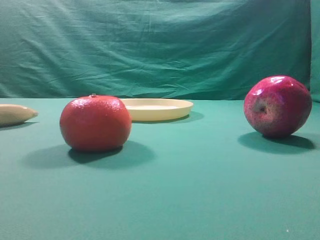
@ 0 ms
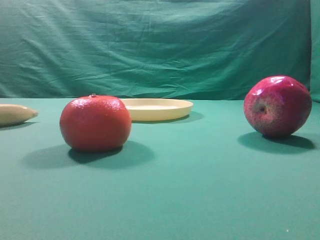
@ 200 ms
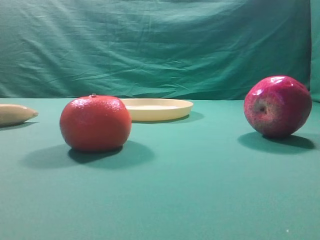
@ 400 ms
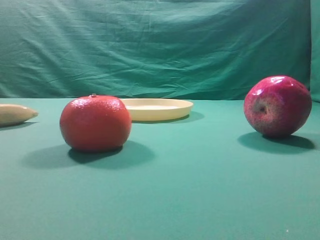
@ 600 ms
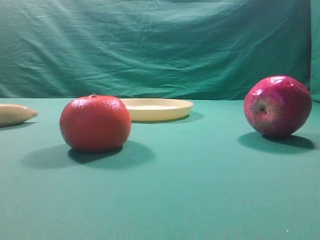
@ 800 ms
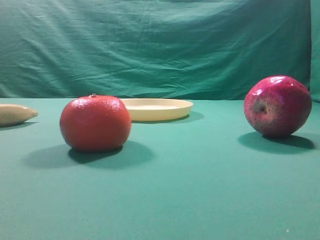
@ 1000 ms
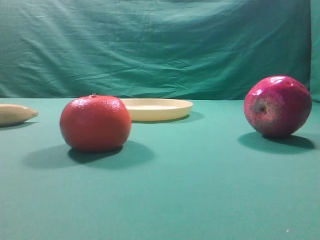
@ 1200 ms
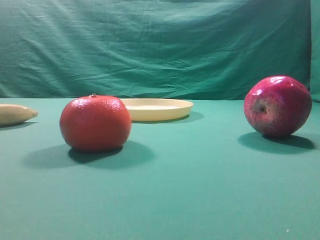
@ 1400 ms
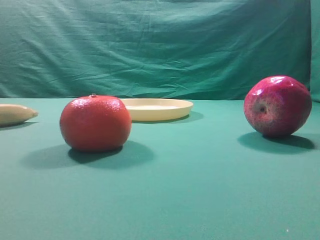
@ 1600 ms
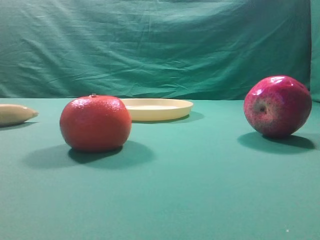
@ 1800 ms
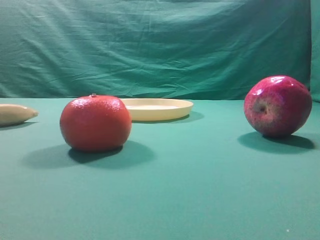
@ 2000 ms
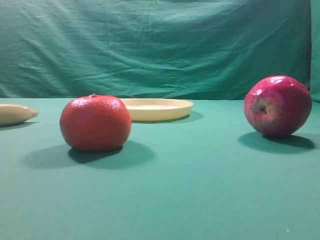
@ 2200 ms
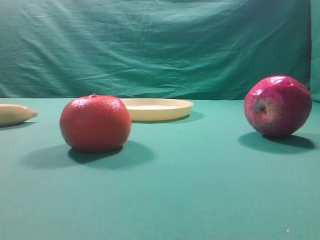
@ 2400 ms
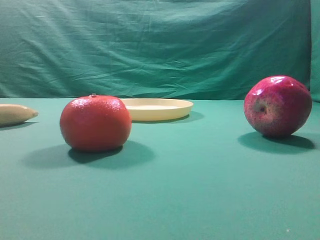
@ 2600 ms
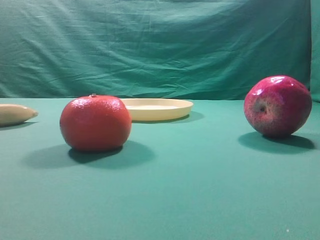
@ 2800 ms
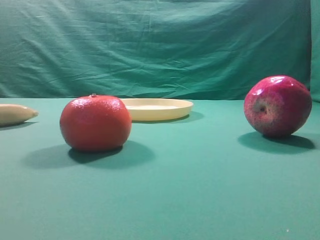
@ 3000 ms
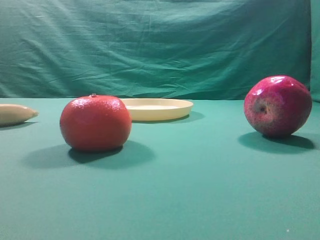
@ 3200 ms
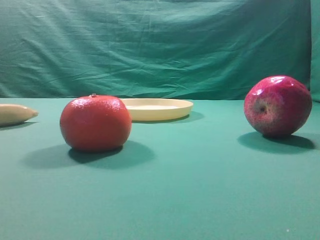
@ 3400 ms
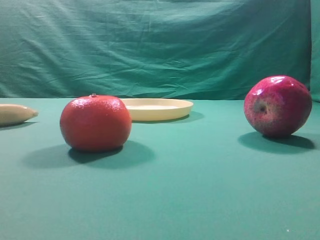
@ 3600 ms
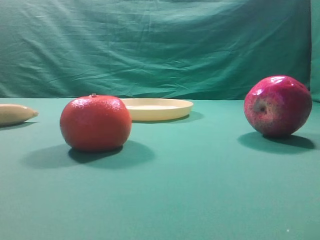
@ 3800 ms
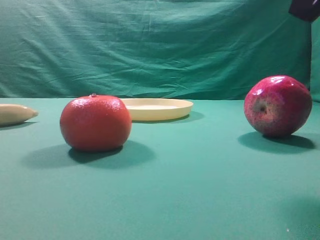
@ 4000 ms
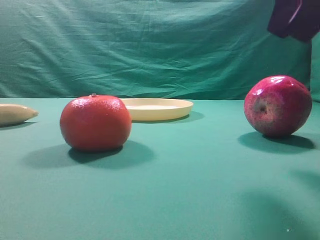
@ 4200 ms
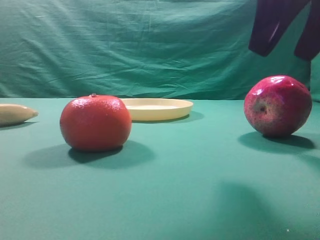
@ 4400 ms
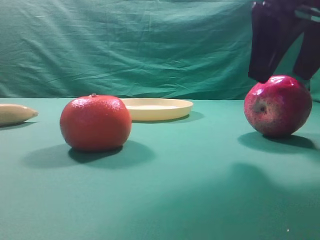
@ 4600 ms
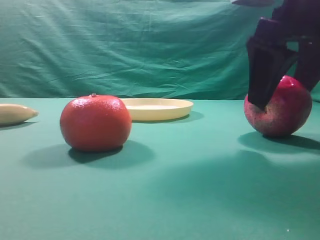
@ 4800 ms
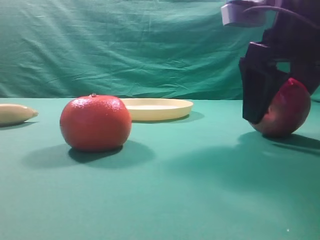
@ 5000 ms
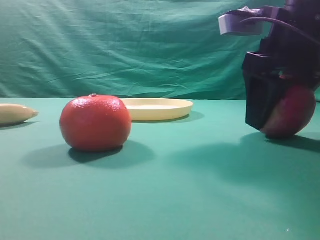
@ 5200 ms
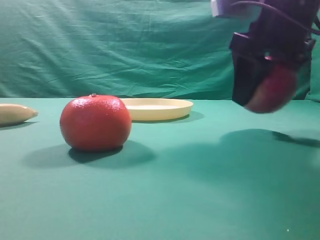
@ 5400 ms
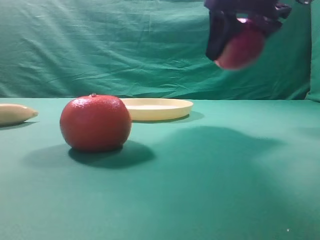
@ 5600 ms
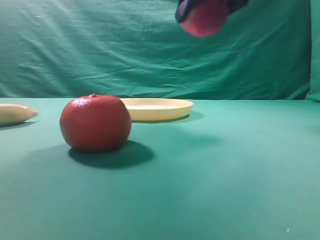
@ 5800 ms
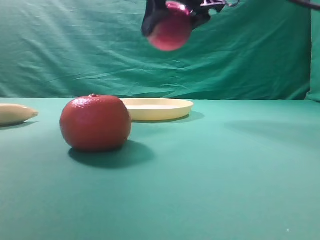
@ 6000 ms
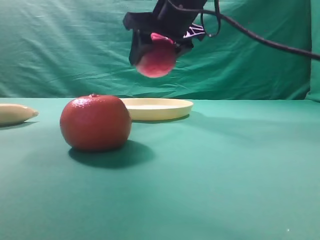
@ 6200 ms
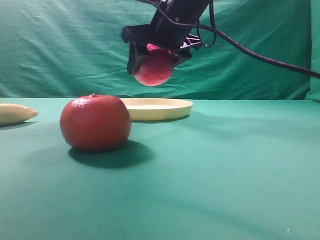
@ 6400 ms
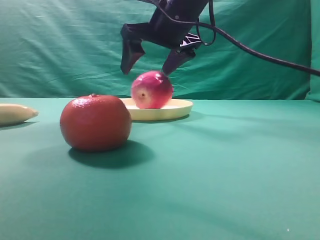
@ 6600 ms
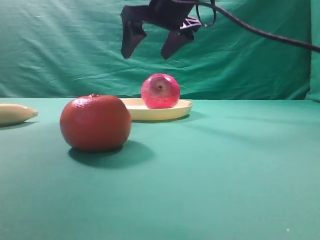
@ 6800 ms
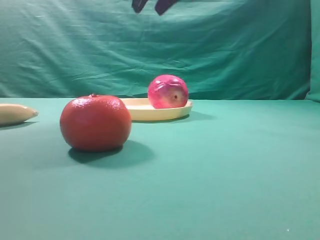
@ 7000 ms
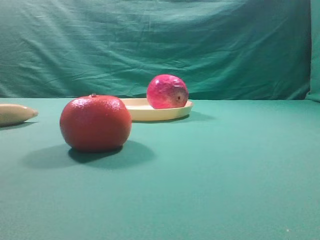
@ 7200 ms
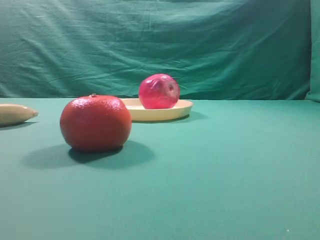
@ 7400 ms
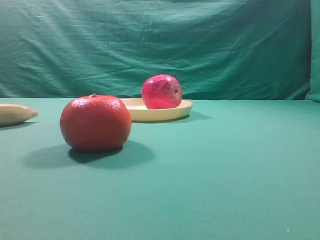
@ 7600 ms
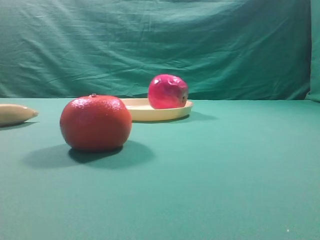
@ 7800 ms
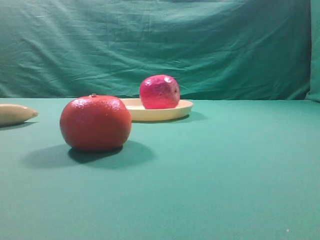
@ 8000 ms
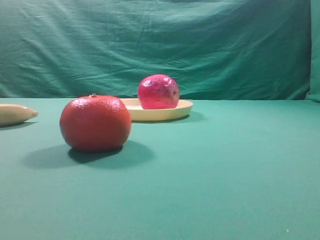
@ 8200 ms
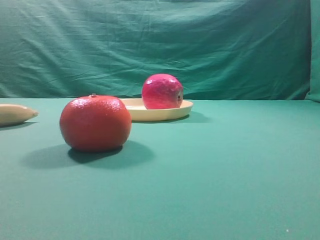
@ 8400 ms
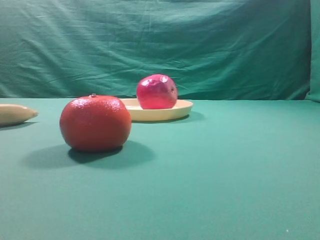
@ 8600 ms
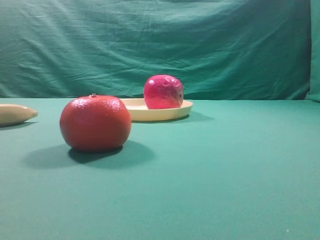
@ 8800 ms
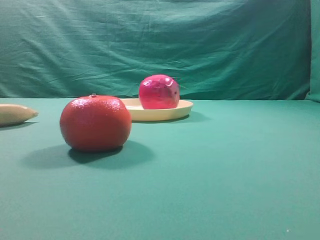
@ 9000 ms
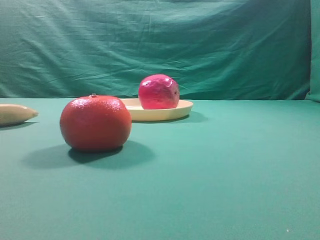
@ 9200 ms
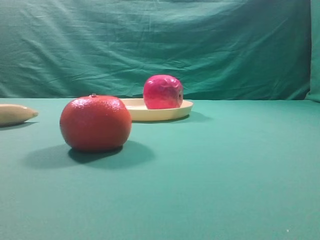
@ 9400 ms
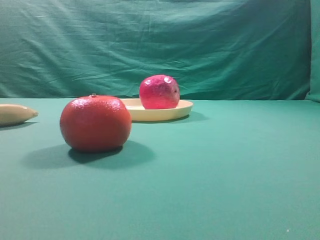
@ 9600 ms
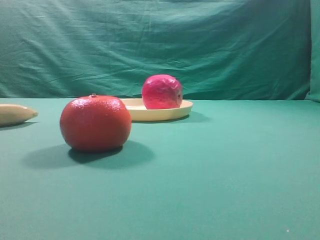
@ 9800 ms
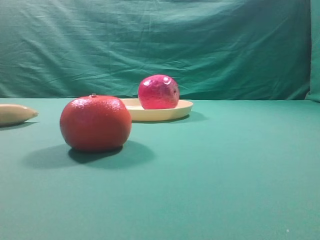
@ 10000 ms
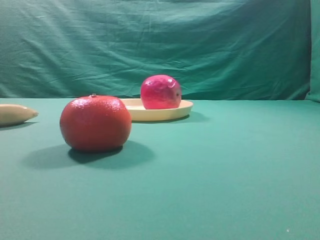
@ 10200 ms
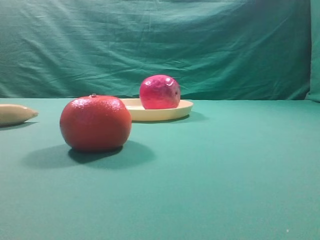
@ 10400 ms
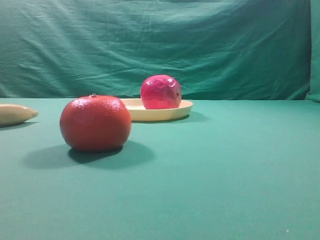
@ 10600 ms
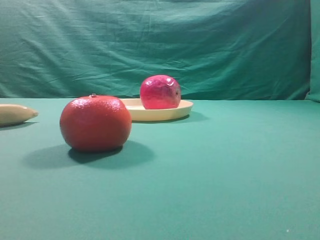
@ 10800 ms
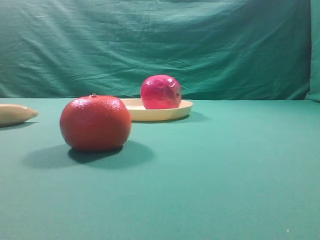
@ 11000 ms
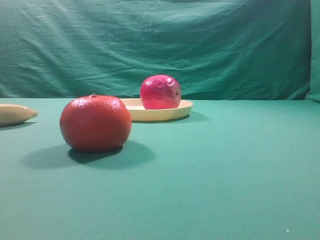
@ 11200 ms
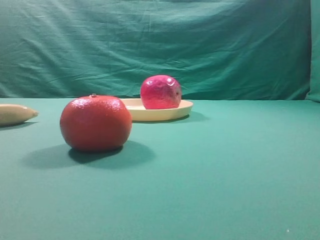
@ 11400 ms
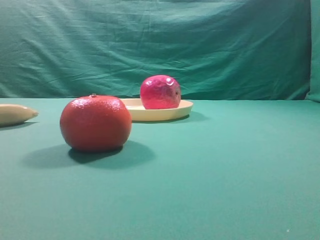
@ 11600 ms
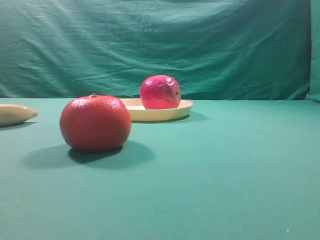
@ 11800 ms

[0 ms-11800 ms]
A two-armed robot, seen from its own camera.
Task of the whole recording: grasp the apple and place it into the yellow plate.
Step, 0 ms to 5400 ms: Grasp the fruit that can keep the doctor away.
Step, 5600 ms to 6800 ms: Place the picked object into the yellow plate.

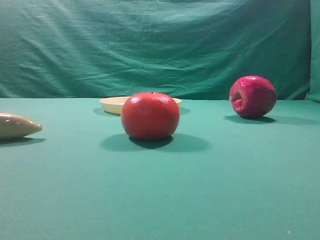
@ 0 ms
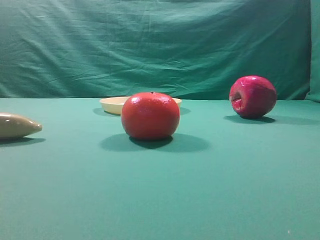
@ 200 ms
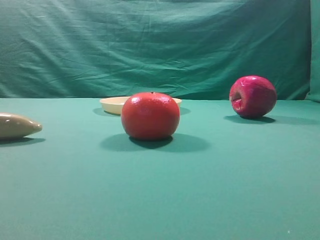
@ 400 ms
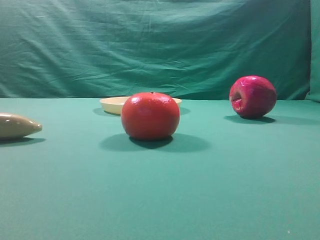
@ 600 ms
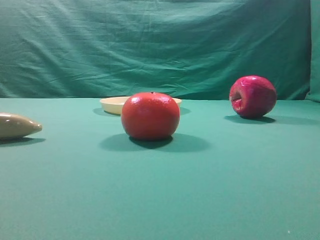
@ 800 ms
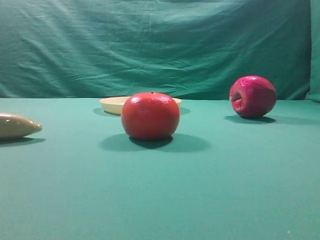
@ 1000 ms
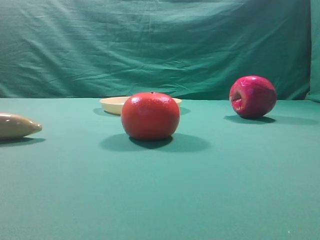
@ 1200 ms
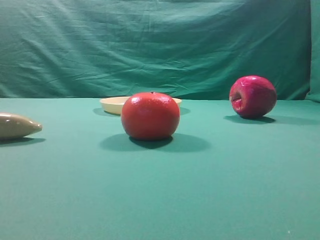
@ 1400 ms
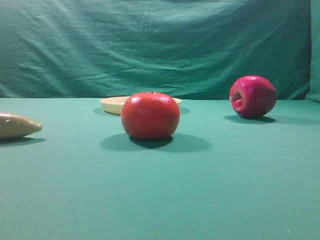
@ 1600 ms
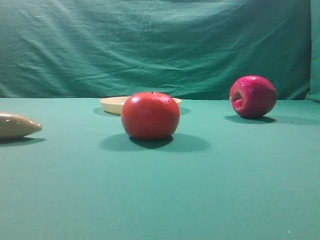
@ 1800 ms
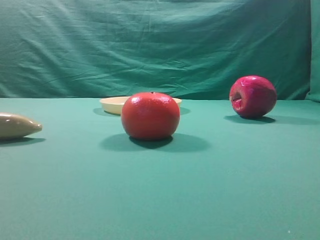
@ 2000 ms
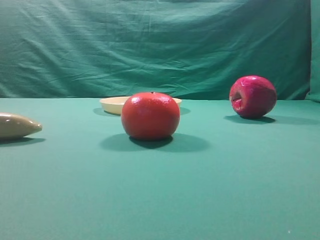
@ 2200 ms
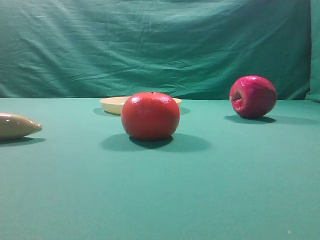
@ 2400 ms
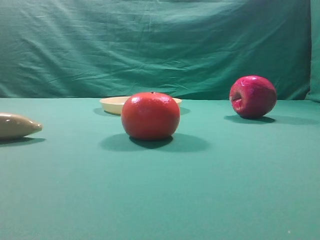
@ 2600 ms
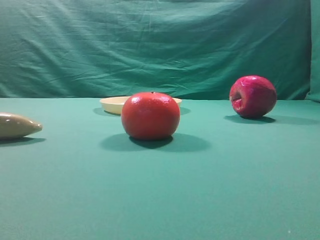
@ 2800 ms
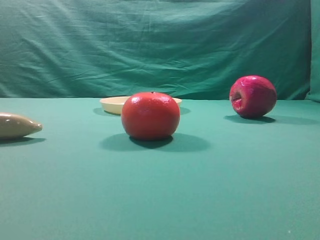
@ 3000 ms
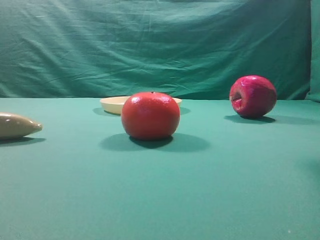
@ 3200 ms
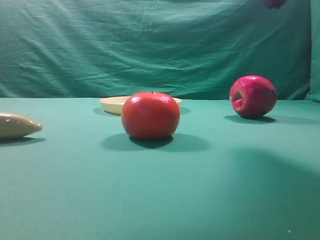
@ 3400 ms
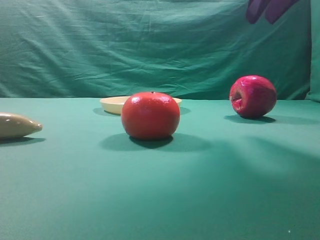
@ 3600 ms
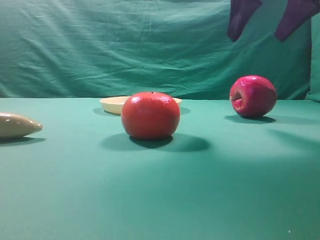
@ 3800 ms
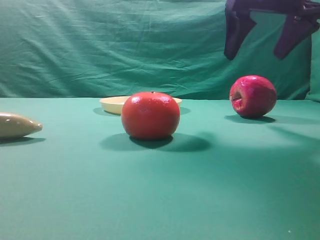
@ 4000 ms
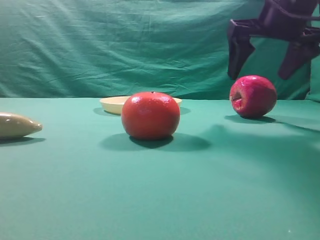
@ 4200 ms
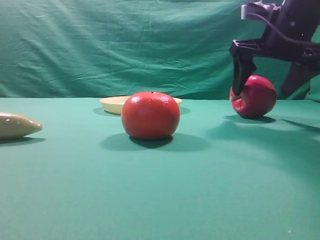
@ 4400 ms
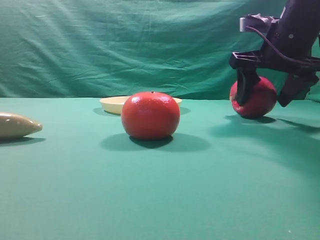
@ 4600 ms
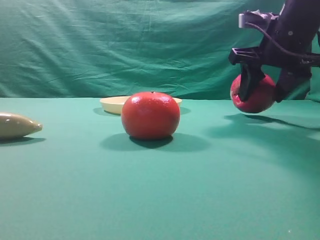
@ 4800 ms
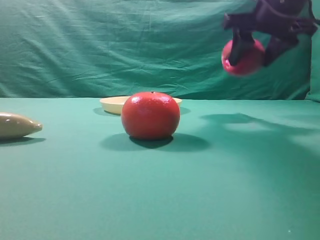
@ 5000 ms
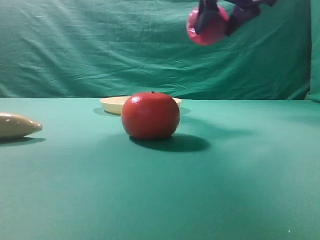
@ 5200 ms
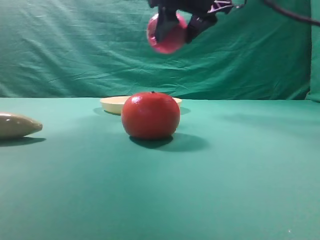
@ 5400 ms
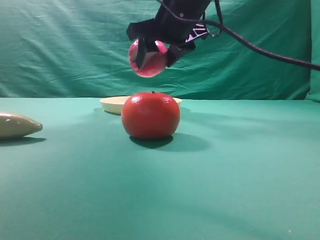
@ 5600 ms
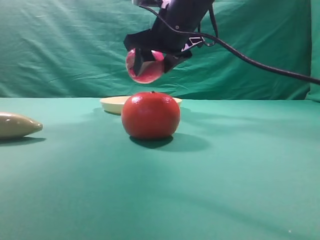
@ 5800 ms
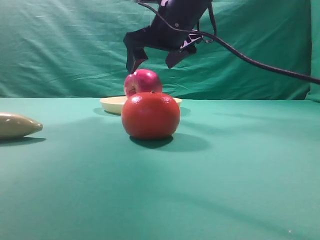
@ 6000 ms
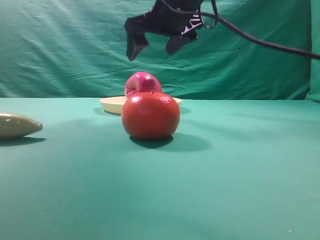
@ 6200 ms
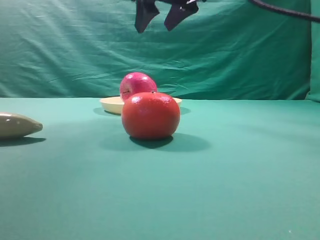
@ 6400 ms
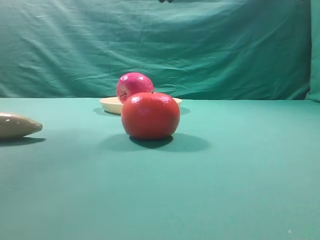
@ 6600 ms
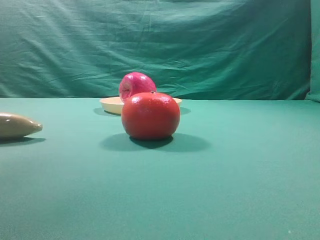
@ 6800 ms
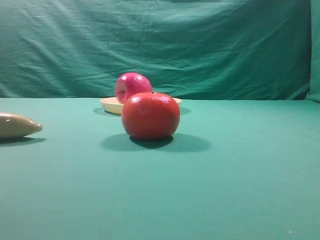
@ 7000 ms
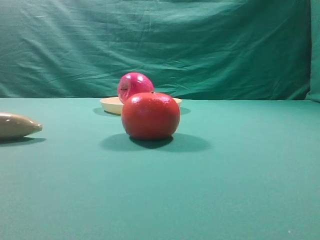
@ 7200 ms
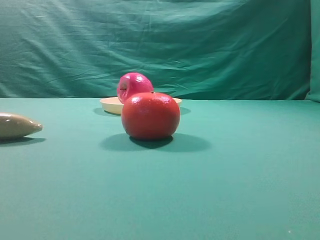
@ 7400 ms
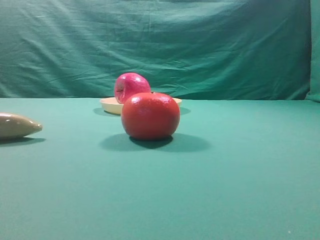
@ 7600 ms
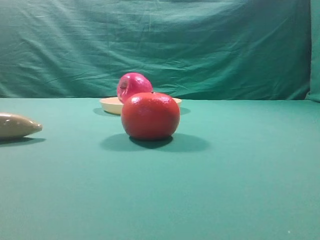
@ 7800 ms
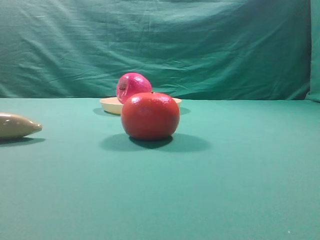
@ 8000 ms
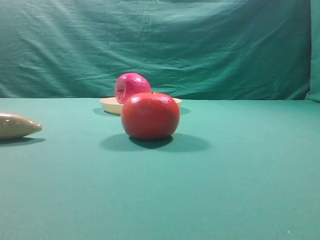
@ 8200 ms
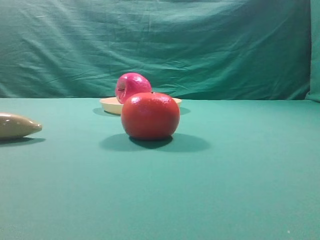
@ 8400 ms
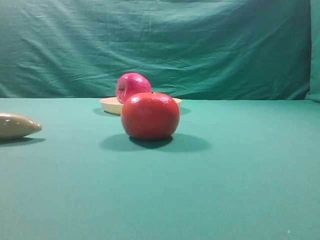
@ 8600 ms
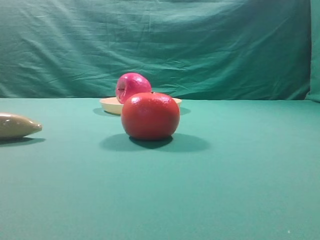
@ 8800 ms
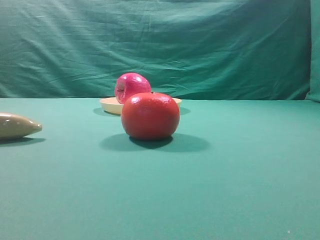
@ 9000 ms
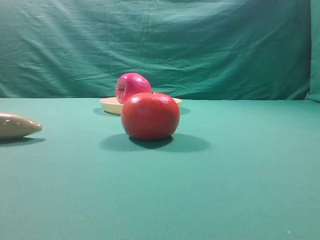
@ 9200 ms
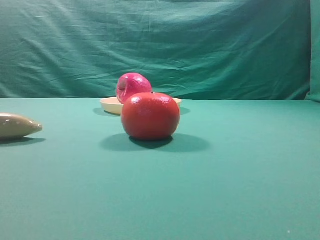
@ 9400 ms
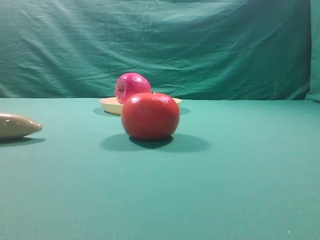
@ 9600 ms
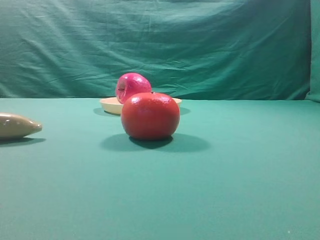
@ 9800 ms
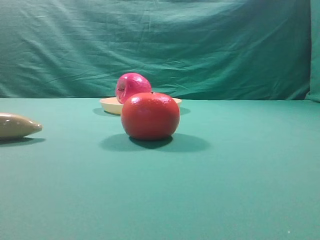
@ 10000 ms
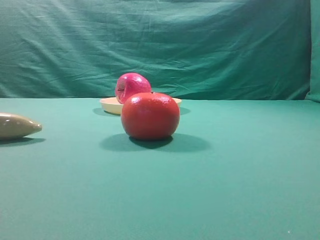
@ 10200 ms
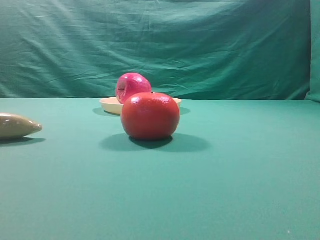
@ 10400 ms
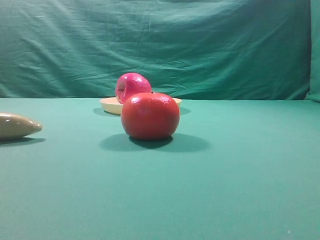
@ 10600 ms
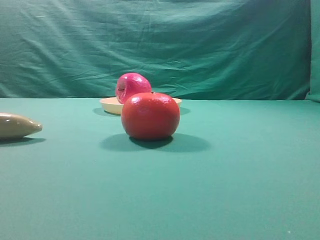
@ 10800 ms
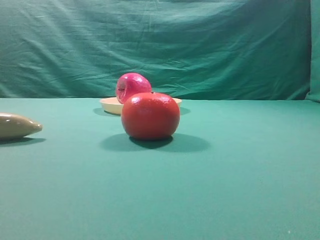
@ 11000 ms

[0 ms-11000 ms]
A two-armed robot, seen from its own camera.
Task of the whole recording: grasp the apple and place it into the yellow plate.
Step, 0 ms to 4800 ms: Grasp the fruit that can keep the doctor away.
Step, 5200 ms to 6200 ms: Place the picked object into the yellow plate.
